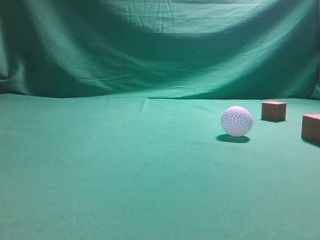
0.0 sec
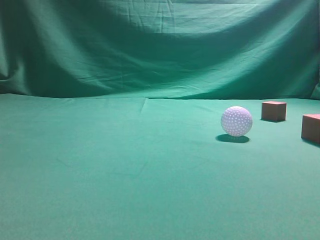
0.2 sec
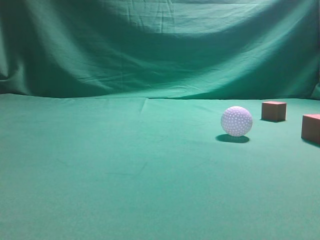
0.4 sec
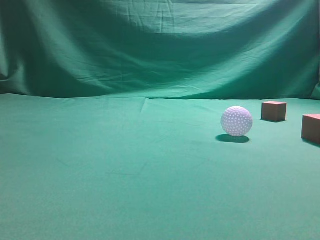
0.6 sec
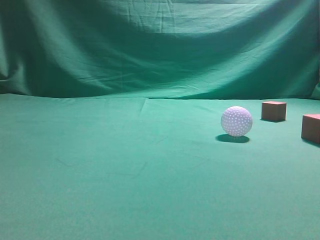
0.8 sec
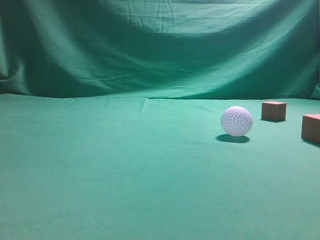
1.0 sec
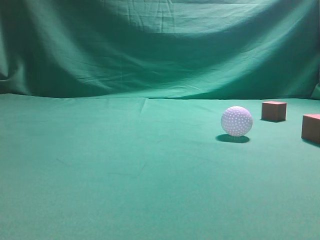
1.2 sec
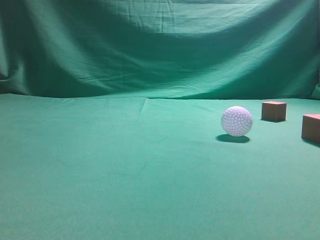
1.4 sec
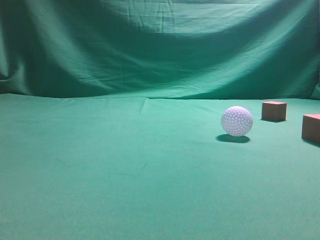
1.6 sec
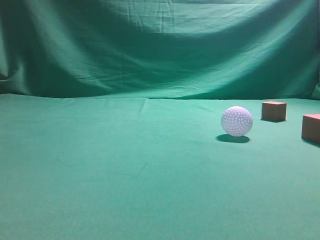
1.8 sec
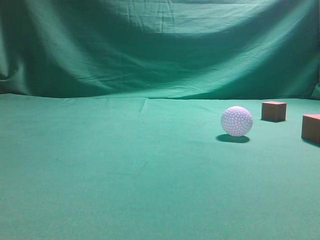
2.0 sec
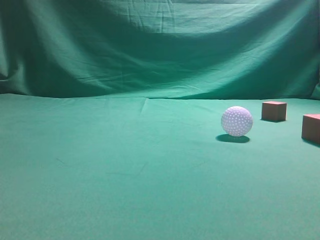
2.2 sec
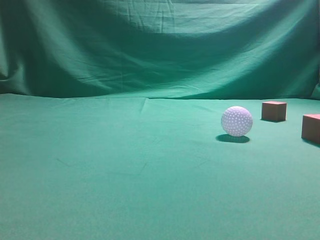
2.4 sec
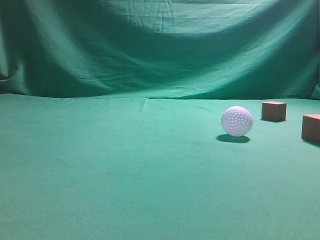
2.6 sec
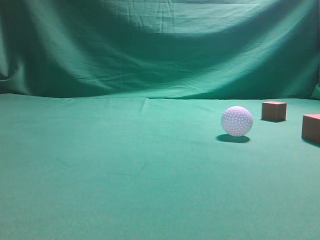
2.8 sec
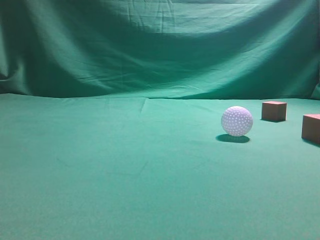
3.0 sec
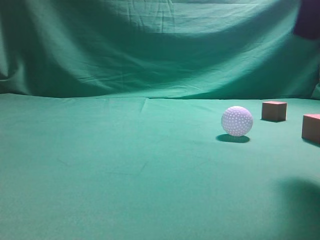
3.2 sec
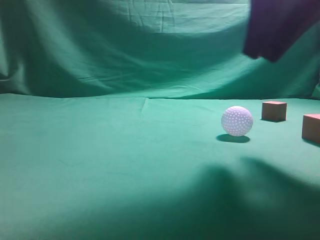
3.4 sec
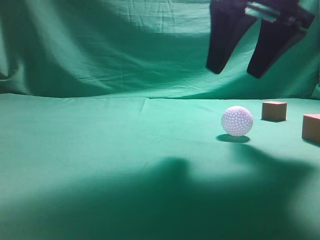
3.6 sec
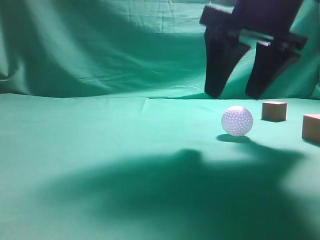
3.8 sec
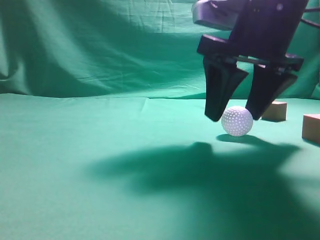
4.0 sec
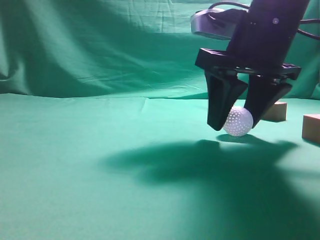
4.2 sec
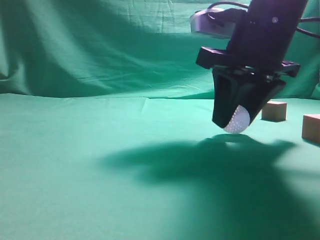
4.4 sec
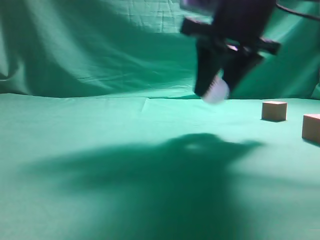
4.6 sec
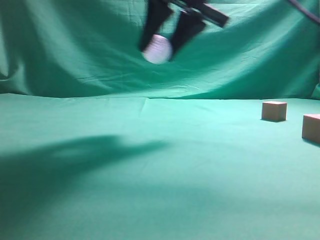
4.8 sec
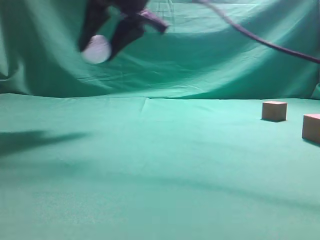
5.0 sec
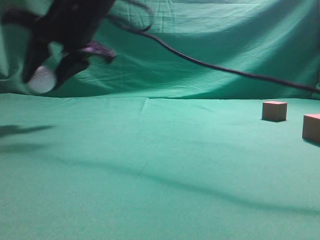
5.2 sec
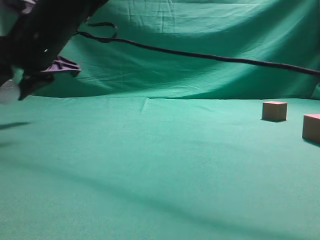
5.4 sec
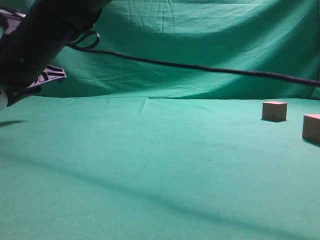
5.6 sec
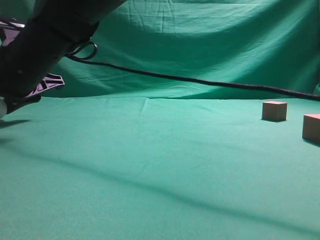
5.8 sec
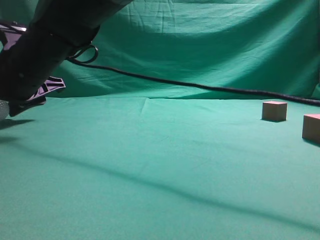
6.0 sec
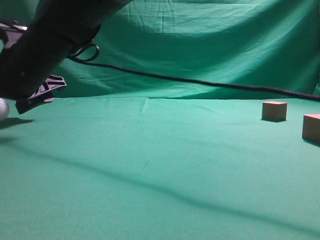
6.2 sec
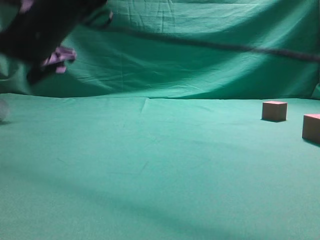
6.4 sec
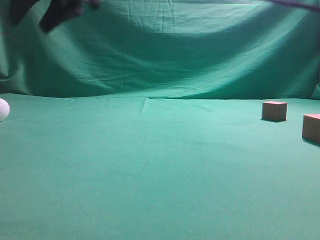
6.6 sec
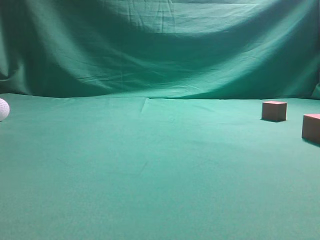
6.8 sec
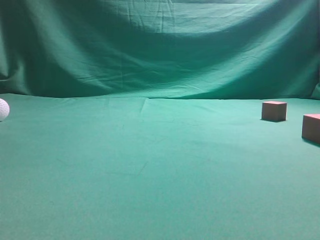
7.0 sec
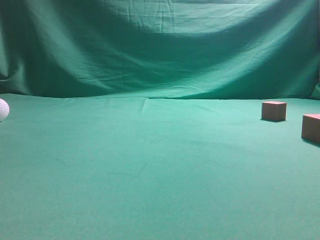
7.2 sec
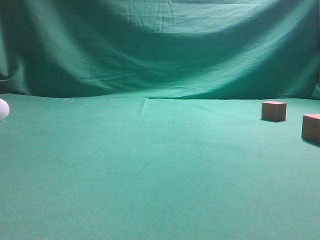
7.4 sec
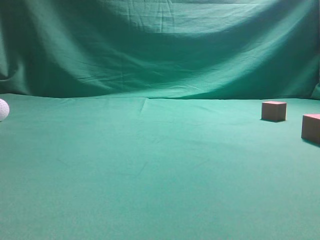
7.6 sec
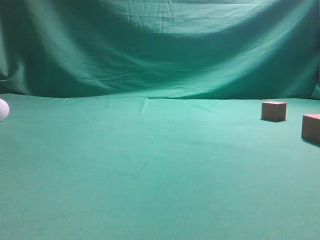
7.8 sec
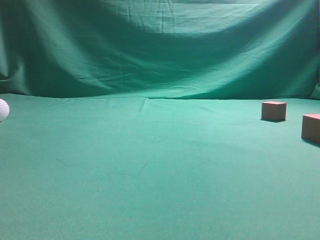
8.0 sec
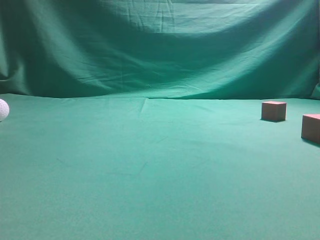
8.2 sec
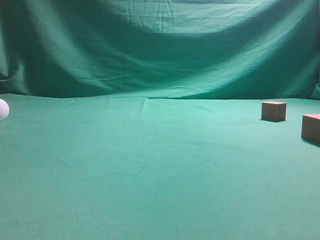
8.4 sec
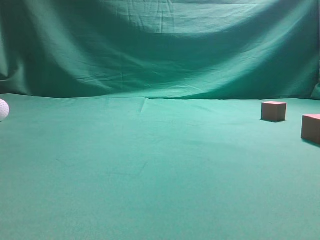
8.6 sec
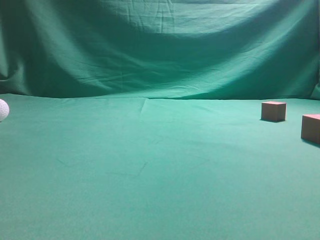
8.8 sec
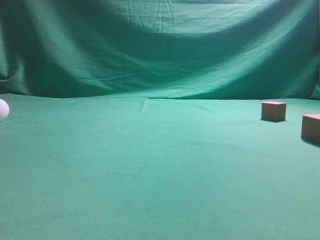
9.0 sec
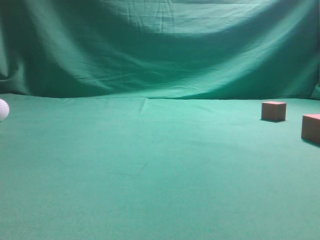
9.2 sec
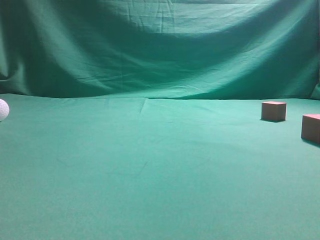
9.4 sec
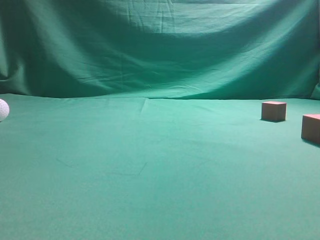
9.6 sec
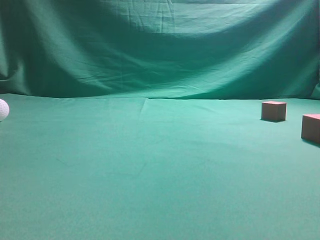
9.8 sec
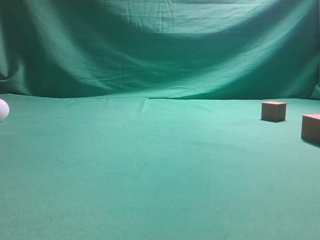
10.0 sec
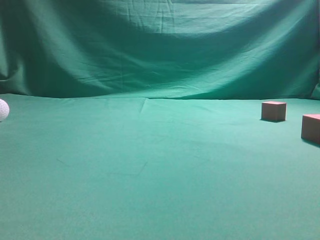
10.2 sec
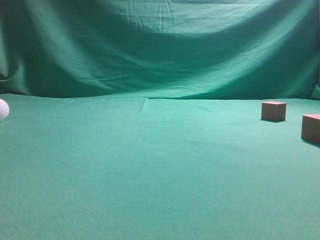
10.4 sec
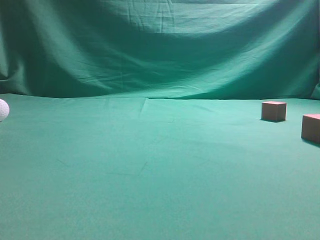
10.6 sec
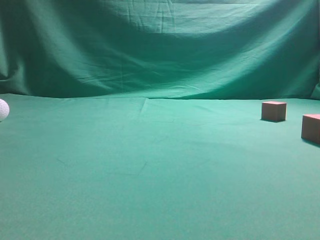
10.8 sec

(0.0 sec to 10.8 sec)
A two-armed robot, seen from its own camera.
Step, 0.0 sec - 4.6 sec: Grasp the spherical object on the right side.
3.0 sec - 4.6 sec: The right gripper heads to the left and forward, covering some 15 cm, and opens its fingers.
4.6 sec - 6.2 sec: The right gripper is displaced to the left by some 25 cm, and opens its fingers.
6.2 sec - 7.8 sec: The right gripper travels to the right, backward and upward by about 50 cm, and closes up.
